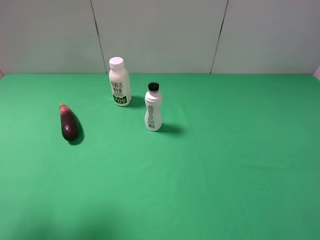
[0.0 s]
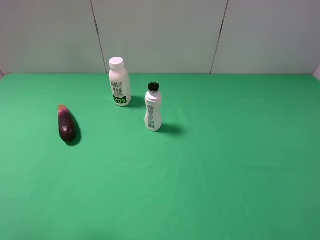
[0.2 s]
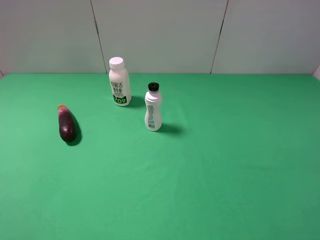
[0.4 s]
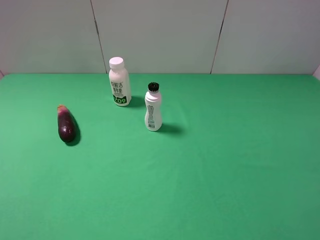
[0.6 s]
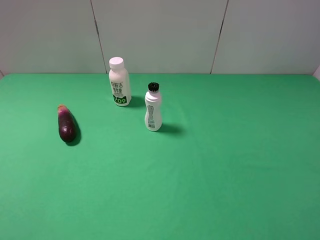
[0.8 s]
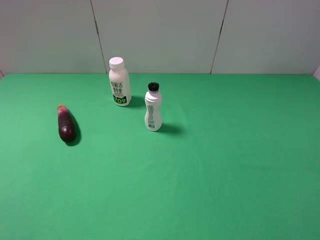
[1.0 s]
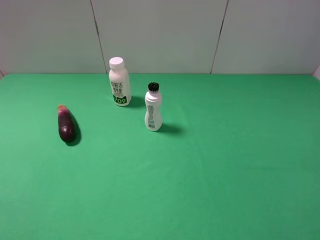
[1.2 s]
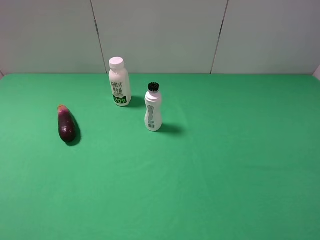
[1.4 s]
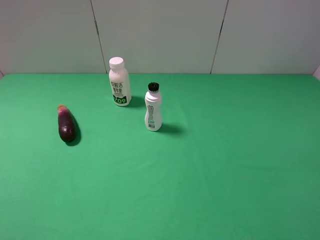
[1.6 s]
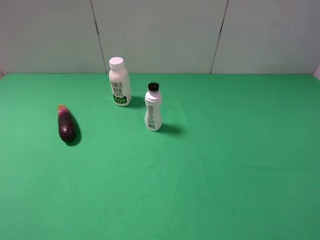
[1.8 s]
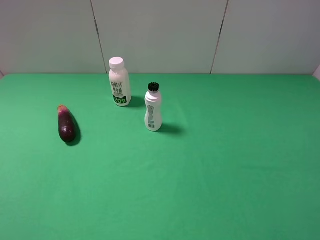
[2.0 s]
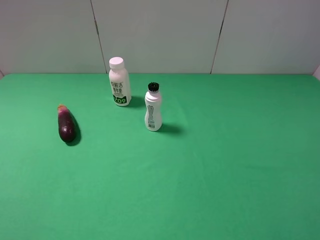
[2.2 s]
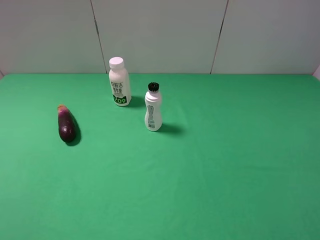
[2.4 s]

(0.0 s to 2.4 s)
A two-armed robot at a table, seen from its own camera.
Task of the whole recording: use the right gripper to pick up the item and transfer it from the right gripper to the left gripper.
0.0 s - 1.2 s: The left gripper moves backward, about 10 cm.
1.2 s - 2.4 s: The two grippers keep their place.

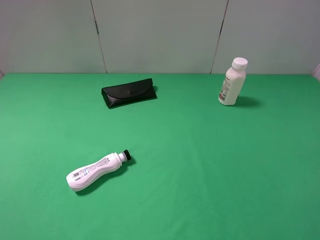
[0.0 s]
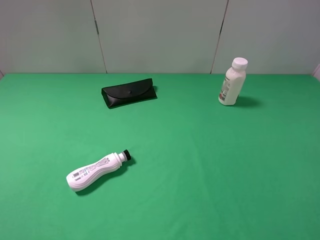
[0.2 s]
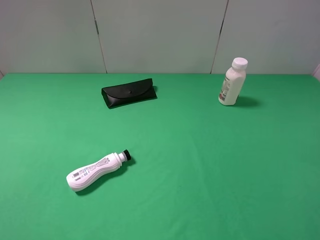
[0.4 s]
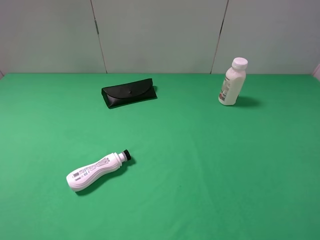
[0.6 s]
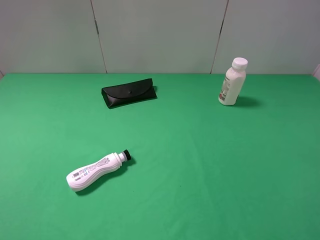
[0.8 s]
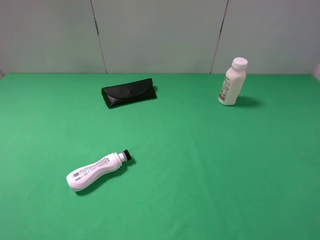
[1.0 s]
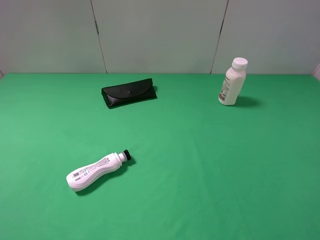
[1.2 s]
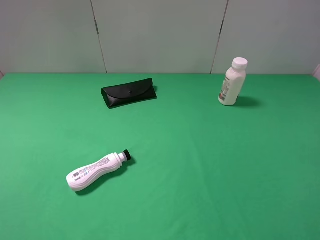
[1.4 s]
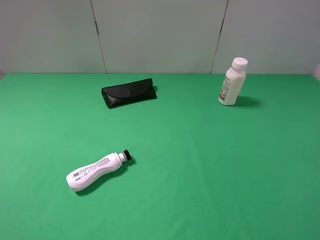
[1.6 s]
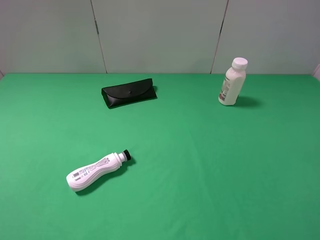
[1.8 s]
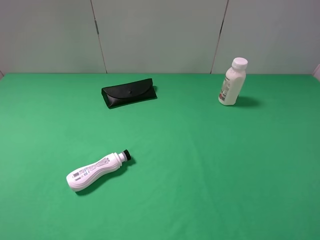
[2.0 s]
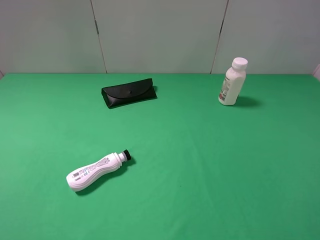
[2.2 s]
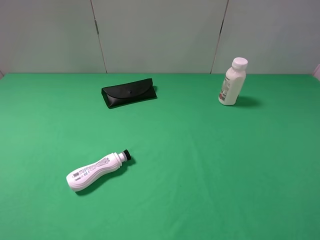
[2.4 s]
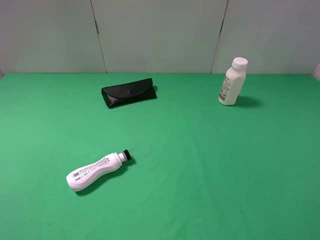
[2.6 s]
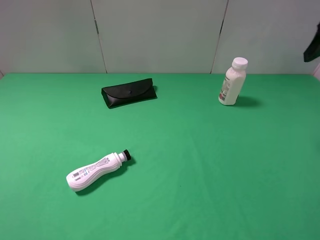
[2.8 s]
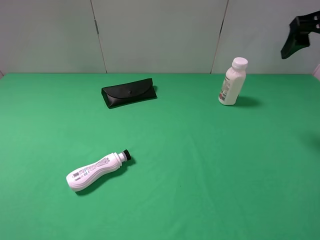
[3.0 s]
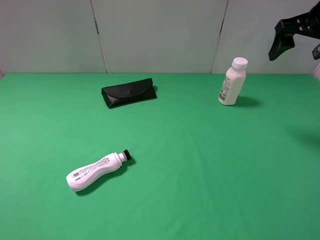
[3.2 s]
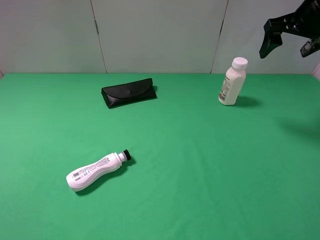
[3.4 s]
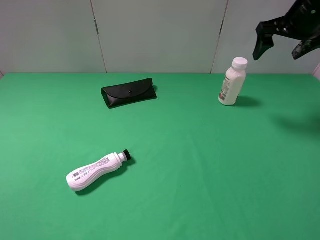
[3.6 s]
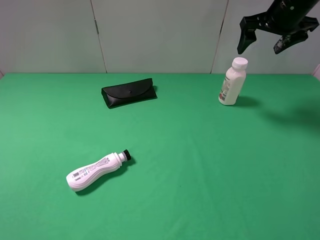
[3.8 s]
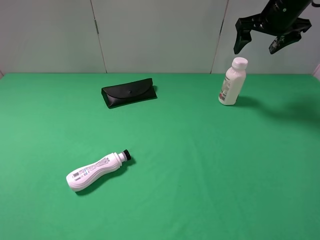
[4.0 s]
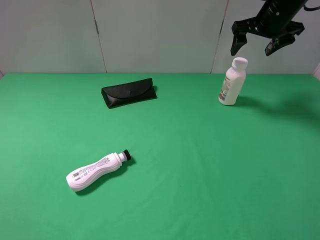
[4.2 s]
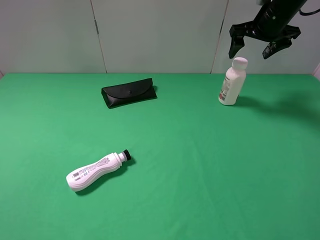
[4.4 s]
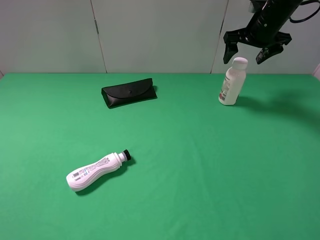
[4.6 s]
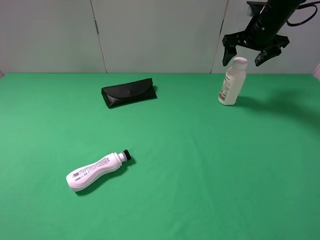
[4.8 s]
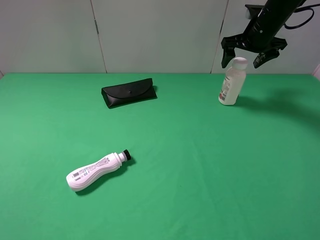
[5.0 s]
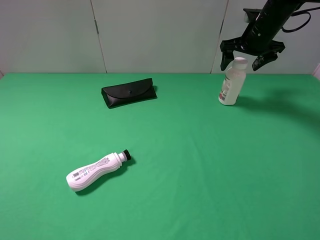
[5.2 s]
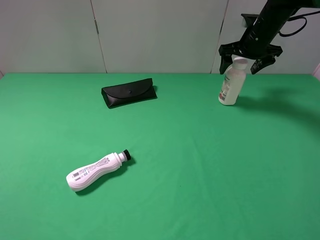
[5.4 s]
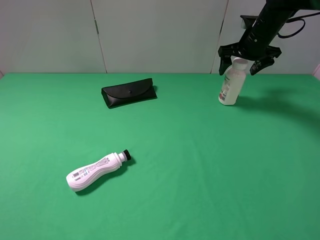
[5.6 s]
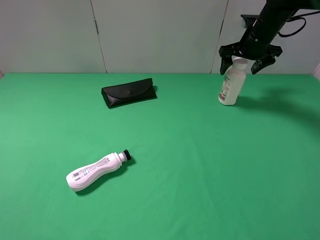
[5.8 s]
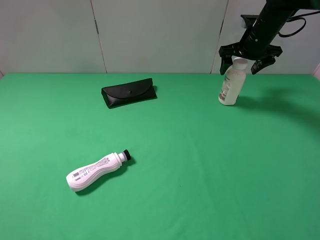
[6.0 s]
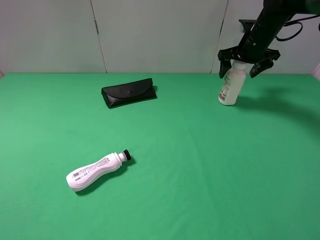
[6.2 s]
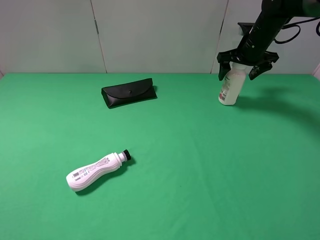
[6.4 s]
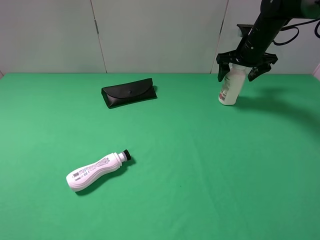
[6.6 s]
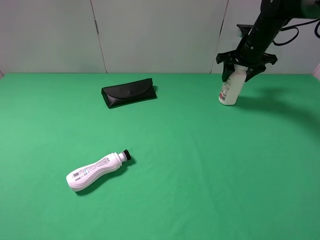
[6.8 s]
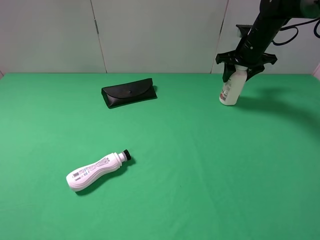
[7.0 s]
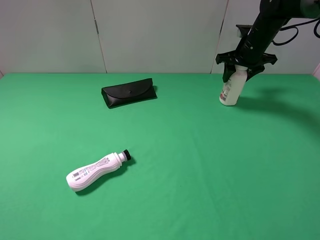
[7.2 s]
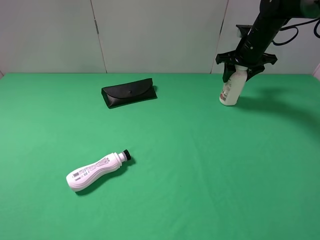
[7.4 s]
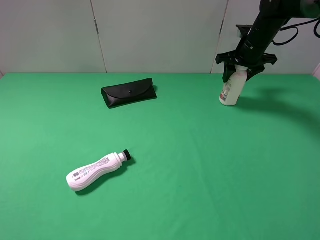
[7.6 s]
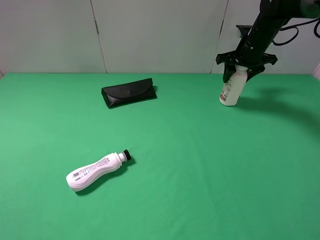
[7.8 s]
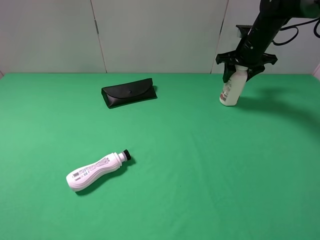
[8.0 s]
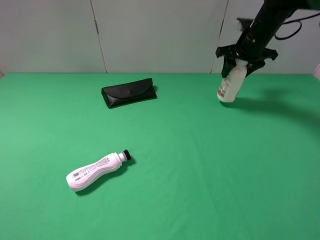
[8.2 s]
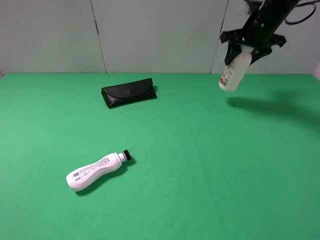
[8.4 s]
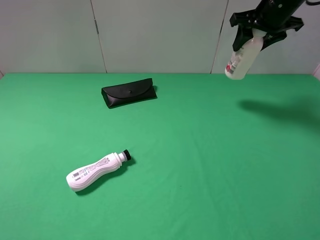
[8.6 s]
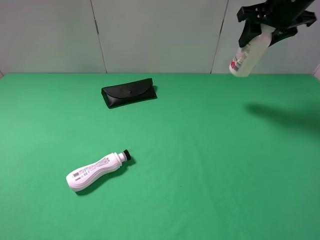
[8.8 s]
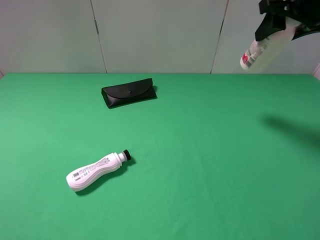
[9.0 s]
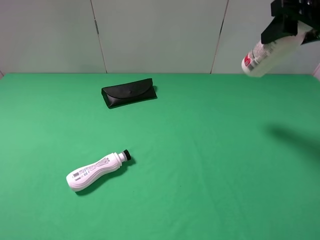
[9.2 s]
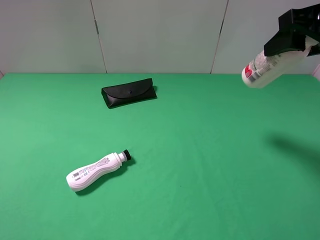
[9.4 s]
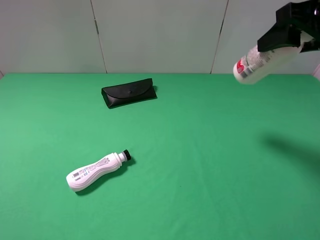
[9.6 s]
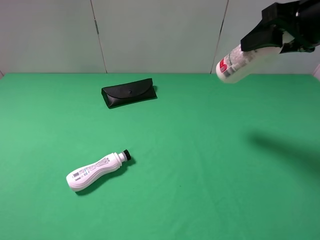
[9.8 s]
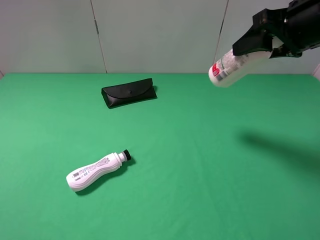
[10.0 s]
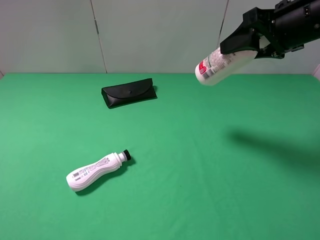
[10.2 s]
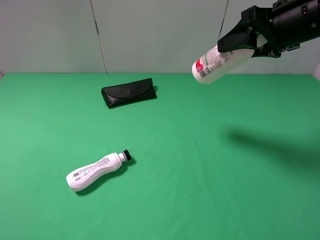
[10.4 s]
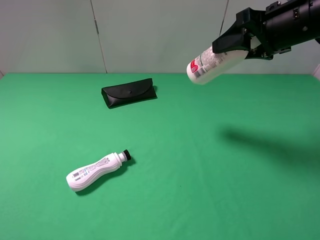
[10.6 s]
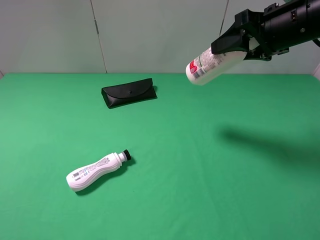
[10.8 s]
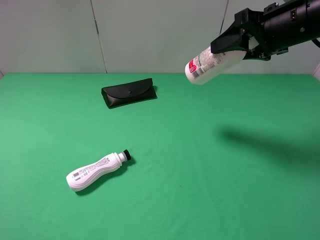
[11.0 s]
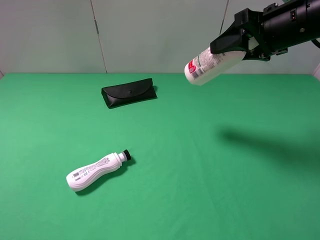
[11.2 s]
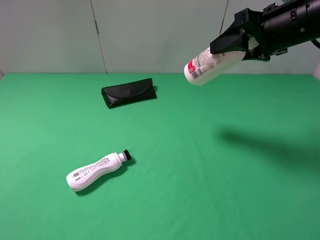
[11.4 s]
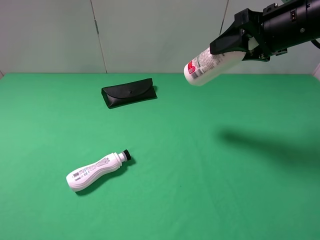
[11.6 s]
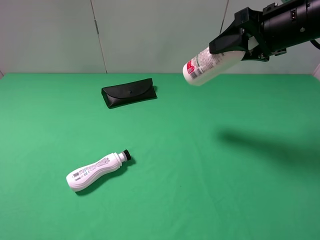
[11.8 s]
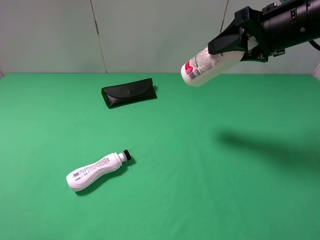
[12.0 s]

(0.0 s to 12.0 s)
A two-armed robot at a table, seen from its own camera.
Task of the whole recording: use the right gripper to pick up the item and transfer it from the right gripper to the left gripper.
Step, 0.0 s - 7.0 s: Use the right gripper to grab the shampoo on the right side of the table.
0.0 s - 1.6 s: Neither gripper changes place.
1.6 s - 3.0 s: The right gripper shifts approximately 30 cm forward.
3.0 s - 4.4 s: The right gripper goes about 15 cm forward and downward.
4.4 s - 6.0 s: The right gripper goes some 5 cm downward.
6.0 s - 7.6 s: The right gripper closes.
7.6 s - 9.0 s: The right gripper travels backward and upward by approximately 20 cm.
9.0 s - 10.4 s: The right gripper shifts by some 5 cm.
10.4 s - 12.0 s: There are only small adjustments of the grippers.

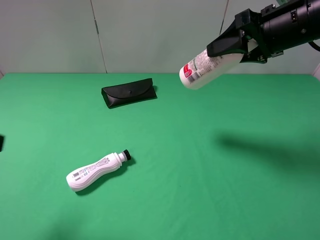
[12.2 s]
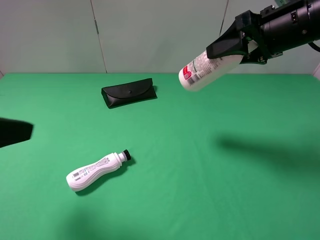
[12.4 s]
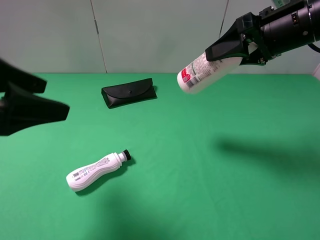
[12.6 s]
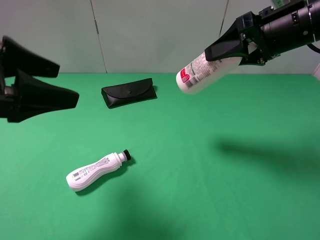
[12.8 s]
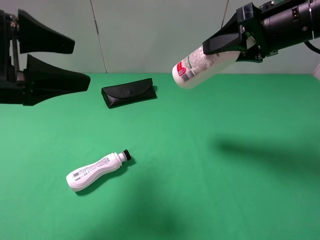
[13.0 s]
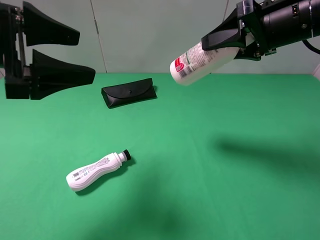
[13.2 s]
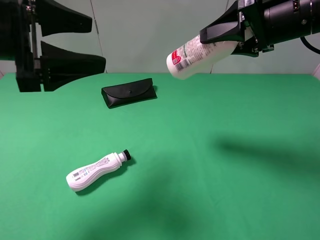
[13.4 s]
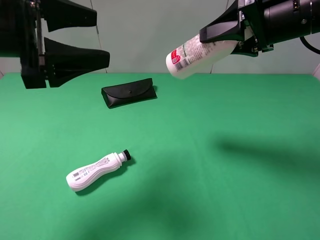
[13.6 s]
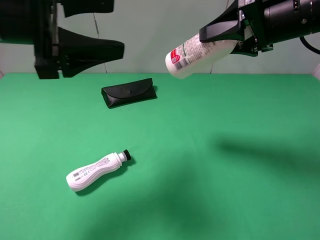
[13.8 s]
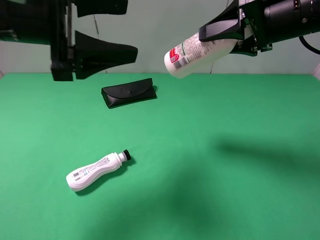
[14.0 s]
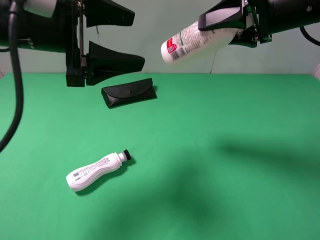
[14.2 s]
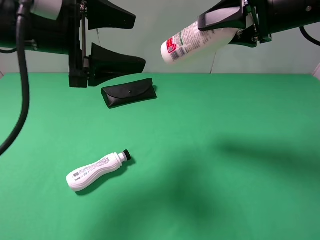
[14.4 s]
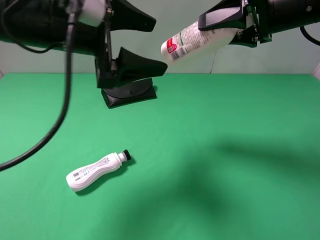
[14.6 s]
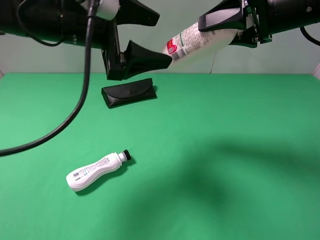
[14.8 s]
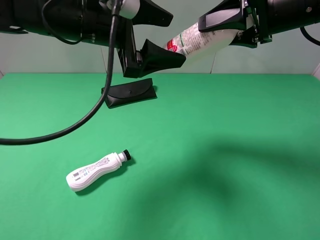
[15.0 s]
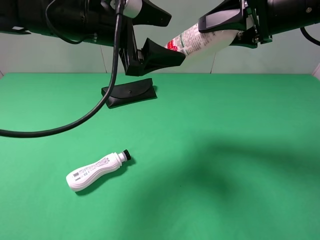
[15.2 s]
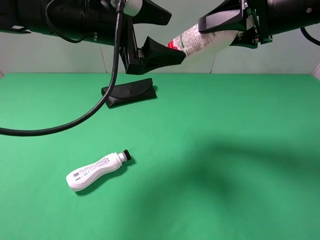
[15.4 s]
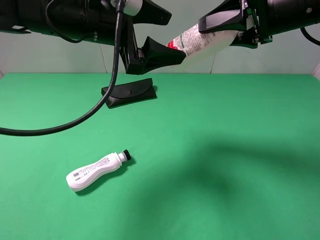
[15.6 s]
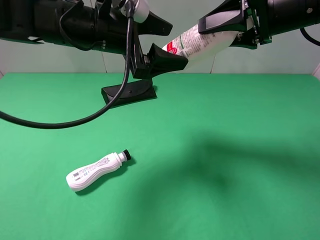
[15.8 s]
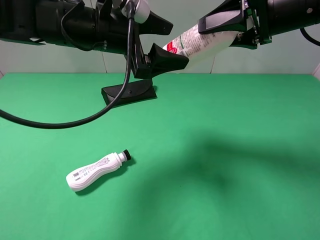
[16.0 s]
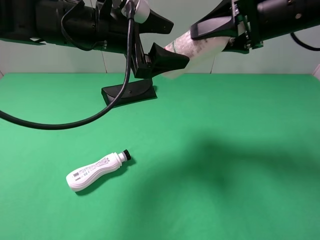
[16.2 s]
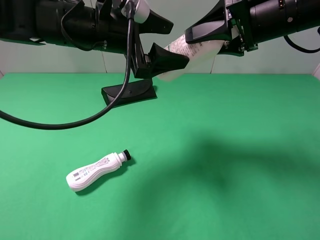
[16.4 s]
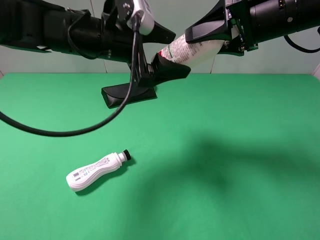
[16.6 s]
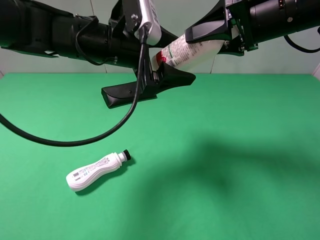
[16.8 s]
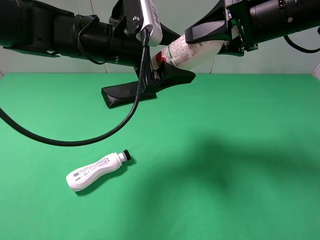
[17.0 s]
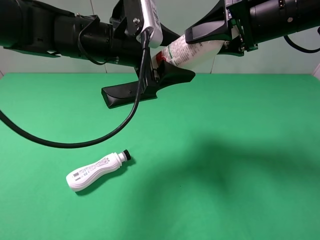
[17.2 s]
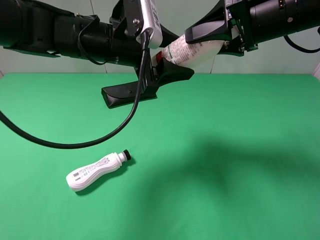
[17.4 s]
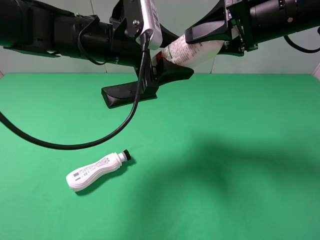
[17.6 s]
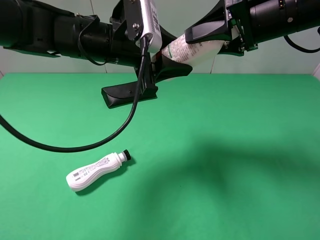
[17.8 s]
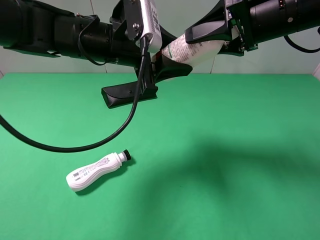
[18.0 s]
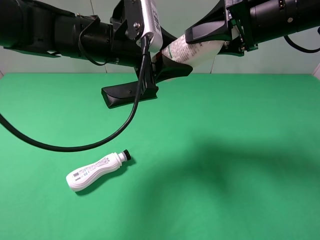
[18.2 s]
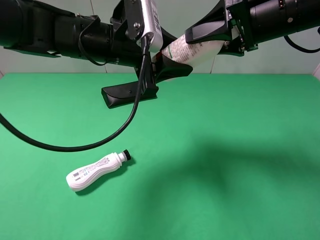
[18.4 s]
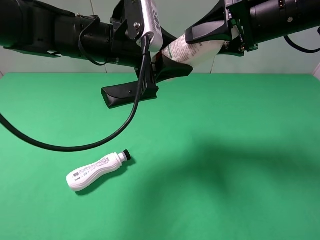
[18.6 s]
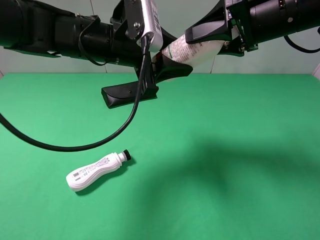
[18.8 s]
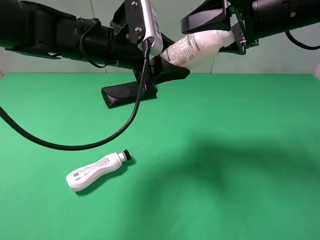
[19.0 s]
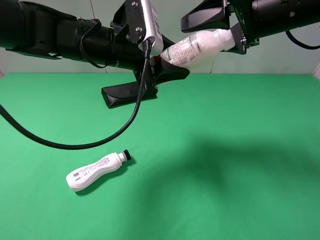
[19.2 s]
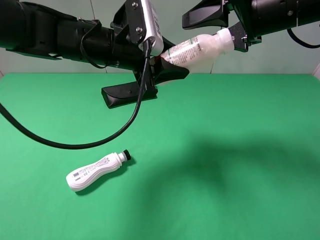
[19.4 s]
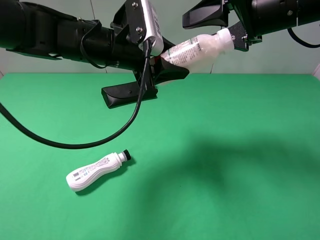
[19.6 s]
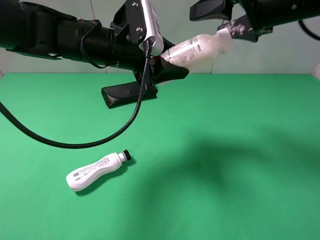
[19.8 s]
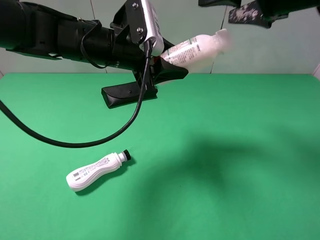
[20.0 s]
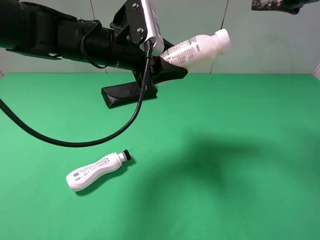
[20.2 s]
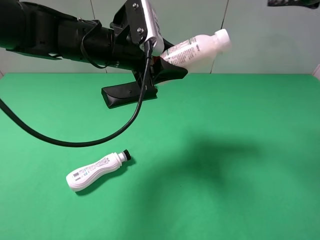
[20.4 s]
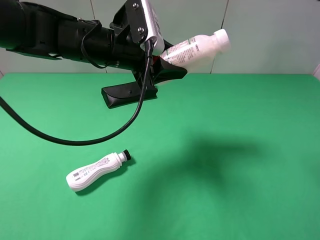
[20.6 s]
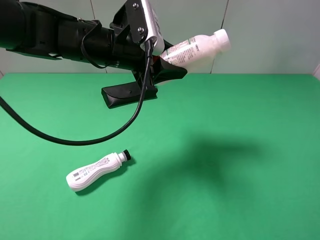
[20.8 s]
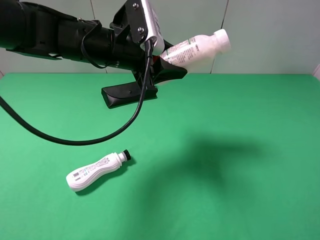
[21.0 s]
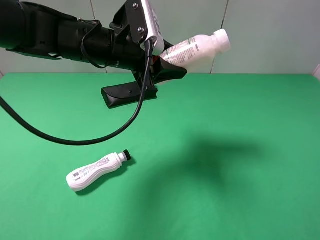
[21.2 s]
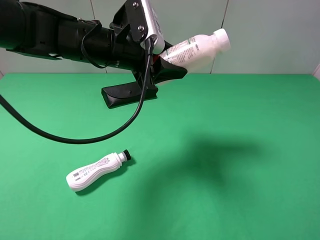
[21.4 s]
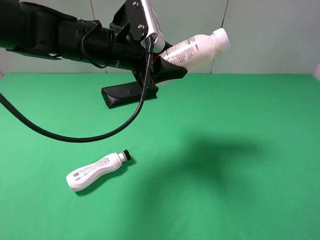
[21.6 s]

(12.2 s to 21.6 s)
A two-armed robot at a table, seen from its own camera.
Task of the whole recording: use the right gripper to pick up the item and transfer it from the right gripper to the left gripper.
Step, 12.2 s - 19.0 s: Pass the shampoo to the left gripper.
12.2 s - 13.8 s: The left gripper travels forward and to the right by about 20 cm.
13.8 s - 15.4 s: The left gripper is displaced to the right and forward by roughly 10 cm.
15.4 s - 17.0 s: The grippers make only small movements.
17.0 s - 18.4 s: The left gripper closes its fingers.
18.4 s - 20.0 s: The right gripper opens.
20.0 s - 21.6 s: The right gripper travels backward and to the right by roughly 25 cm.
